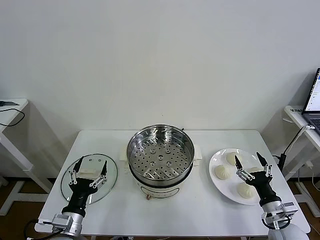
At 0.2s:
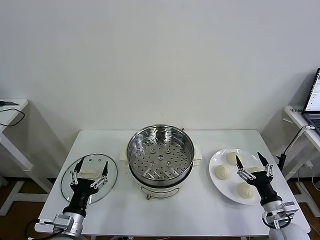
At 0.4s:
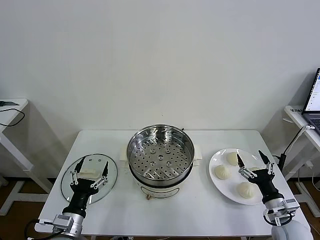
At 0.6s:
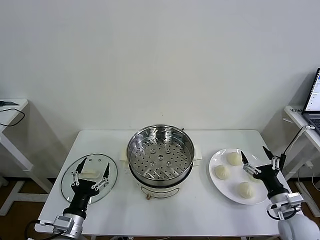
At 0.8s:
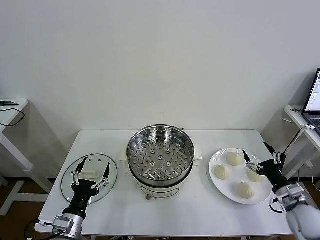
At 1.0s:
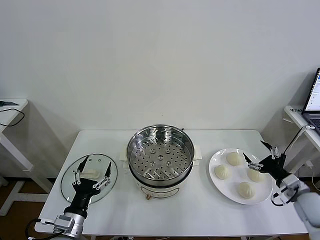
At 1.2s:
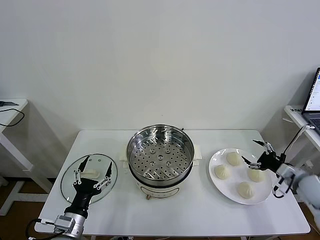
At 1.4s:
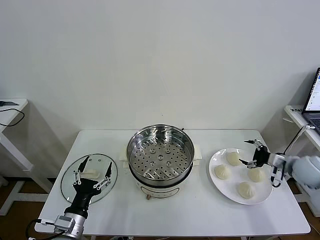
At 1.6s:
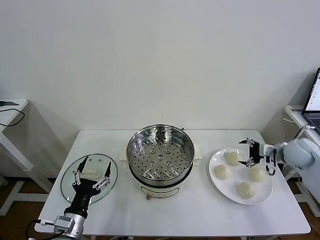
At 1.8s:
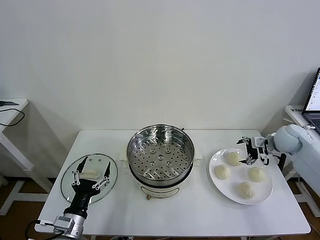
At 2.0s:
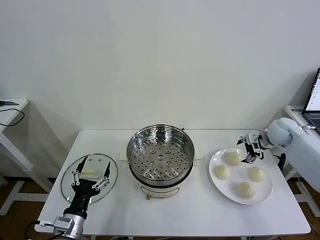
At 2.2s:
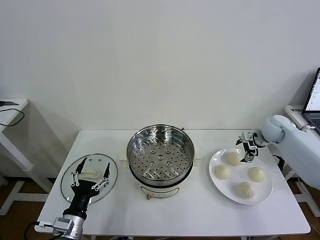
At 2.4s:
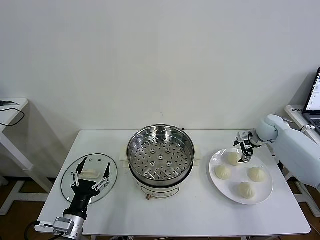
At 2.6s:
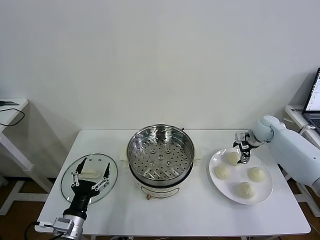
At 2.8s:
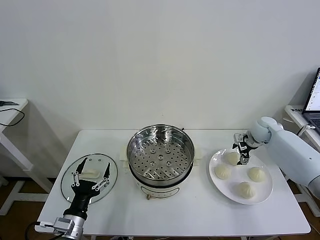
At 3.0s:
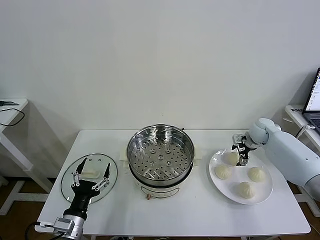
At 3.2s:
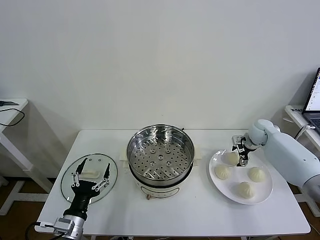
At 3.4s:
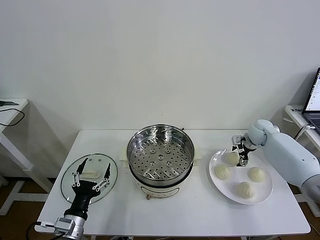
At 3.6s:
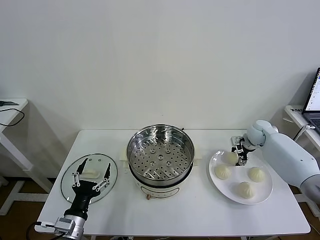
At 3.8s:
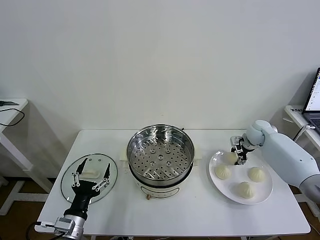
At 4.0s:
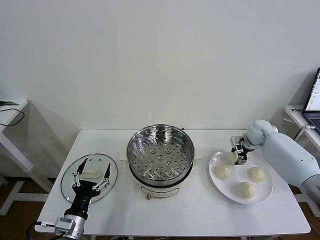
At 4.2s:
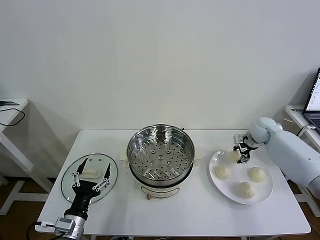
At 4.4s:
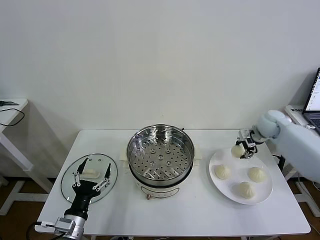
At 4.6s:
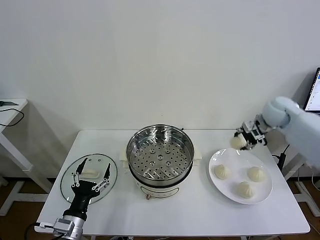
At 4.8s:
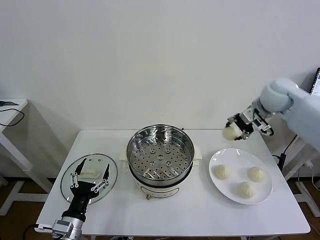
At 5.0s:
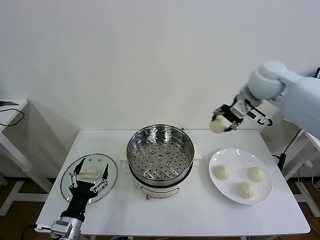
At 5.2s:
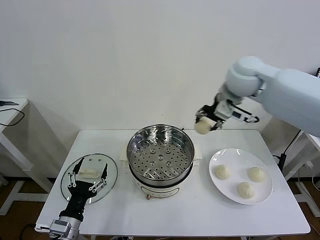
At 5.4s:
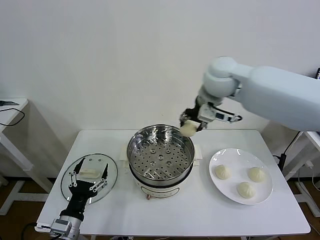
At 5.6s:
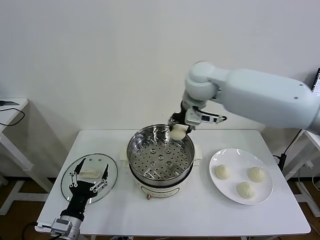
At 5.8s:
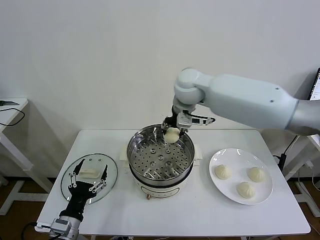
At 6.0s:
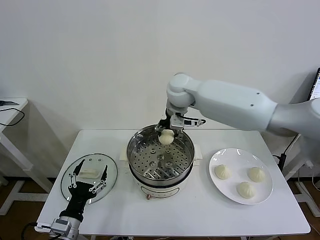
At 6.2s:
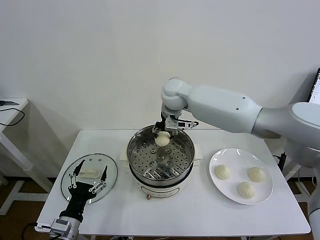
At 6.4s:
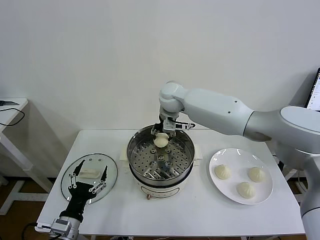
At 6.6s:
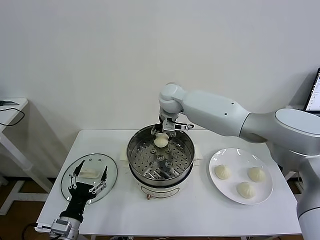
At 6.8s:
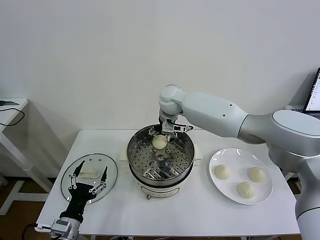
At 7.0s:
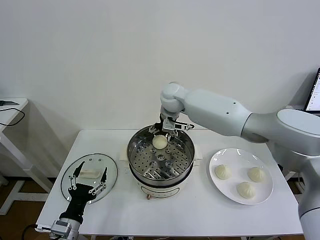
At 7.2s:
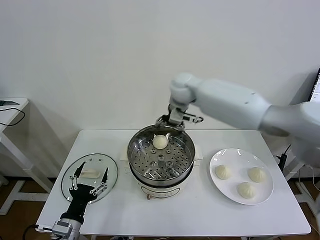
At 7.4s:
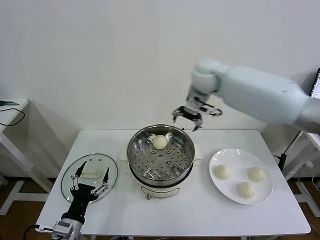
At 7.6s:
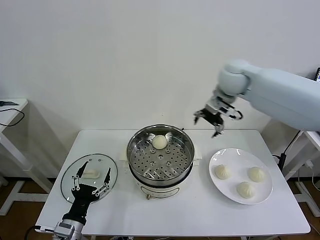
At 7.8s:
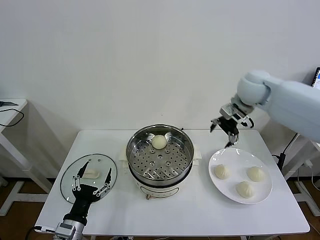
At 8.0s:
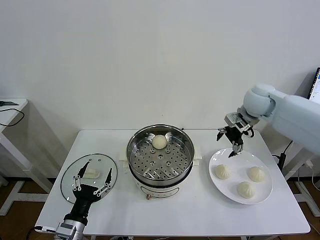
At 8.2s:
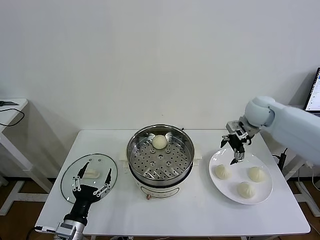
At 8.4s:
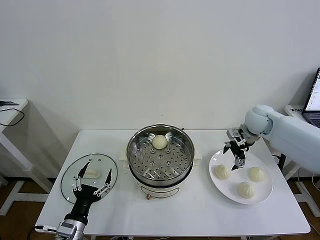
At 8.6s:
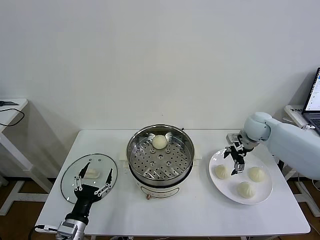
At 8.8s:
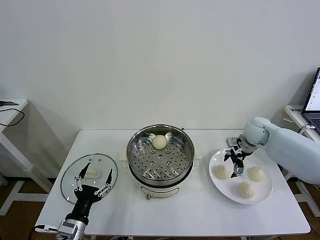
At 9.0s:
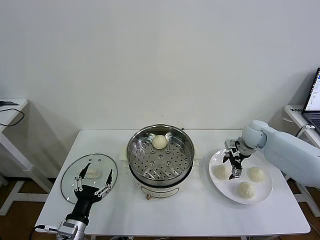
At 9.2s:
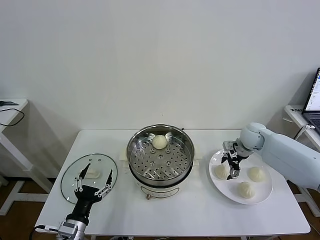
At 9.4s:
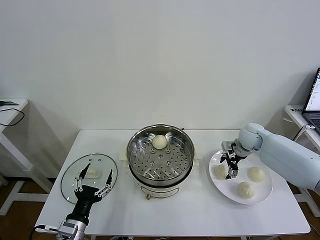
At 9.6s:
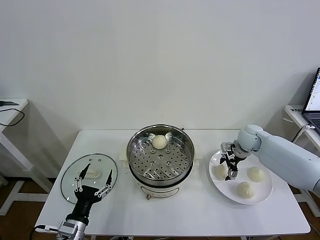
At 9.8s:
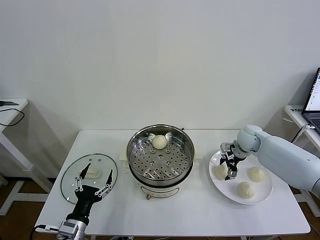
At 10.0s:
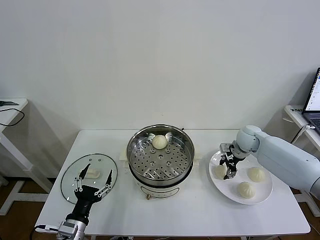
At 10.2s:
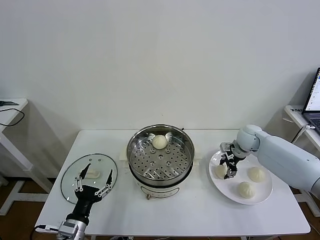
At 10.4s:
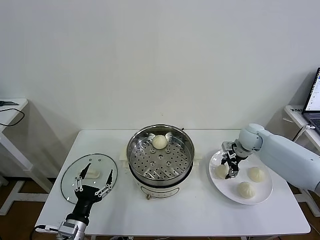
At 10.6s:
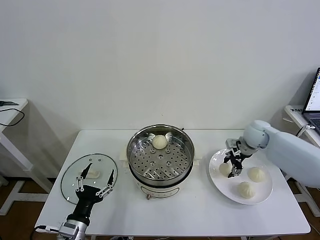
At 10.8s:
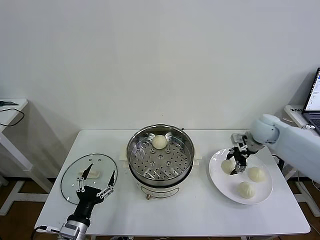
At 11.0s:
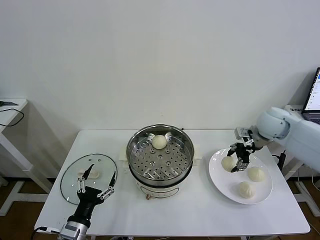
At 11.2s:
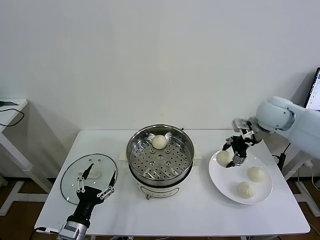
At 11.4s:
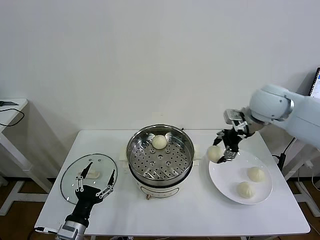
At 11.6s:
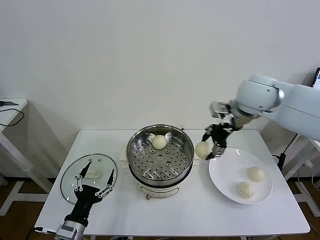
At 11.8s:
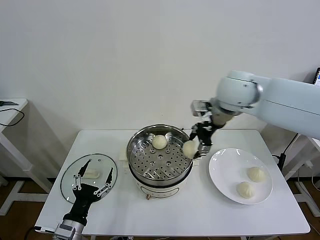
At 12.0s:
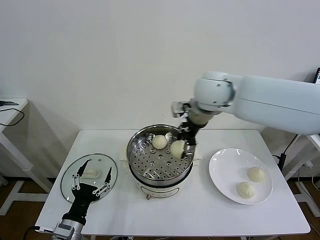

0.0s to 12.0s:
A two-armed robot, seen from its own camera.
Task of the whole recording: take steamed baozi put them in steamer then cover it.
Step, 0.0s to 3.8s: Grasp the baozi in the plate with right gripper.
Step, 4.0s to 6.8s: Place the baozi on the steamer with right gripper.
Step, 7.0s to 10.2s: Grasp the baozi in the plate with right gripper.
1.6s to 3.0s: The right gripper moves forward and to the left, approximately 10 cm.
3.0s to 4.4s: The right gripper goes about 10 cm upward, and closes up.
4.4s to 6.0s: The right gripper shifts some 35 cm to the left.
6.0s to 7.6s: The right gripper moves to the right, roughly 20 cm, and opens its fingers.
7.6s to 9.0s: The right gripper goes about 25 cm downward and to the right.
9.0s to 10.4s: The right gripper closes its fingers.
10.4s to 12.0s: The right gripper moves to the left and upward, about 35 cm.

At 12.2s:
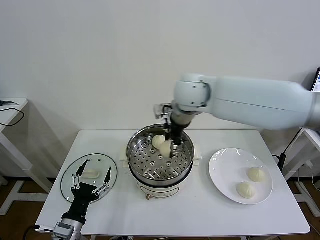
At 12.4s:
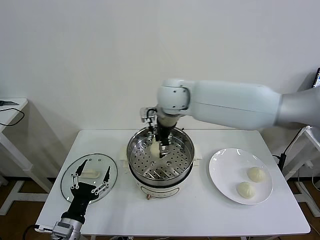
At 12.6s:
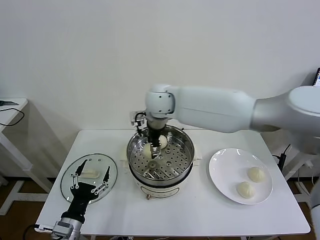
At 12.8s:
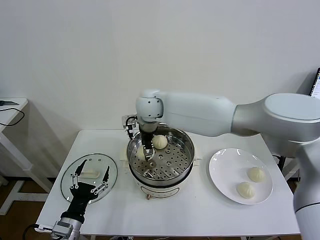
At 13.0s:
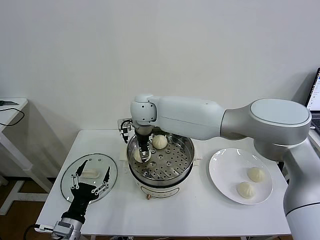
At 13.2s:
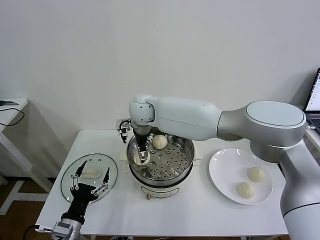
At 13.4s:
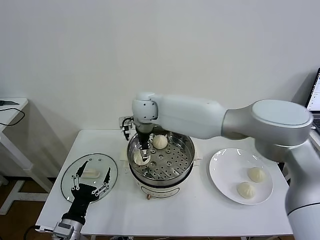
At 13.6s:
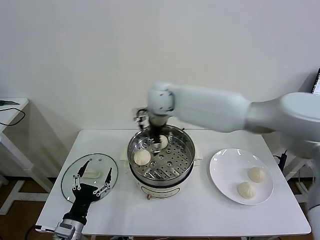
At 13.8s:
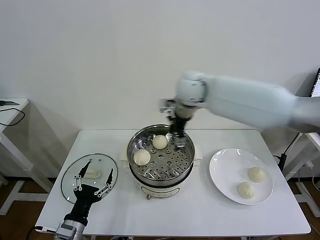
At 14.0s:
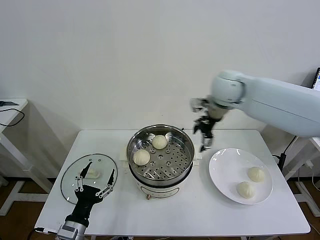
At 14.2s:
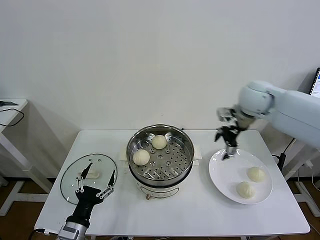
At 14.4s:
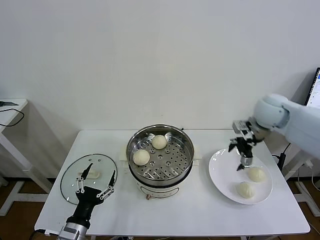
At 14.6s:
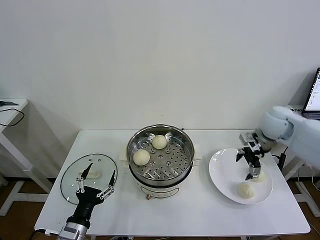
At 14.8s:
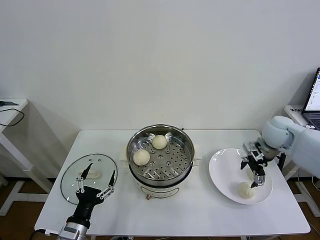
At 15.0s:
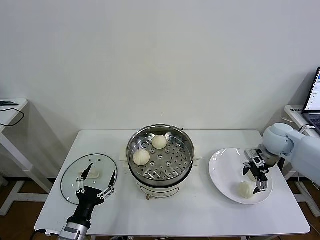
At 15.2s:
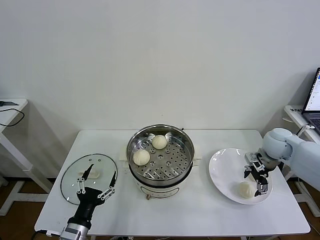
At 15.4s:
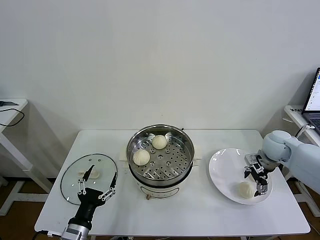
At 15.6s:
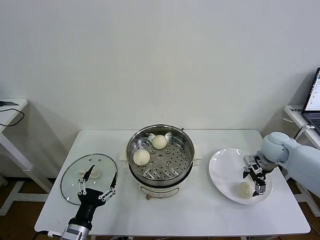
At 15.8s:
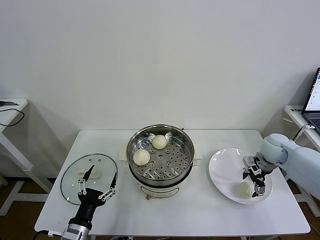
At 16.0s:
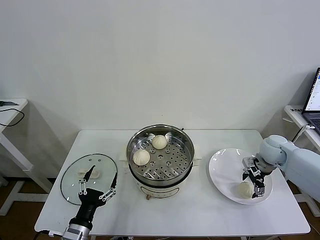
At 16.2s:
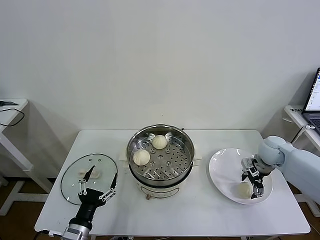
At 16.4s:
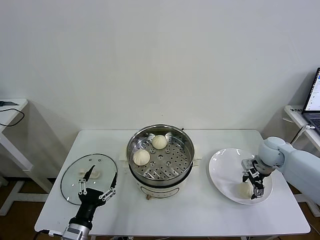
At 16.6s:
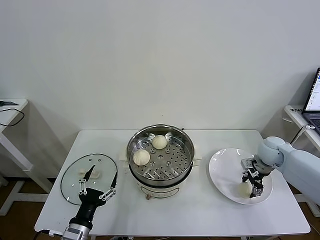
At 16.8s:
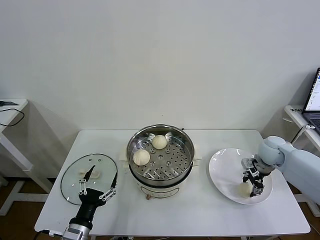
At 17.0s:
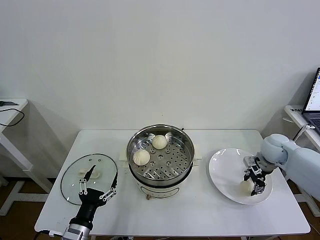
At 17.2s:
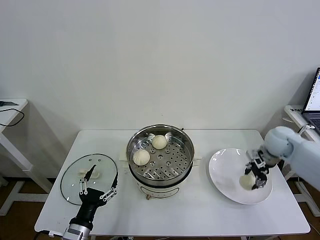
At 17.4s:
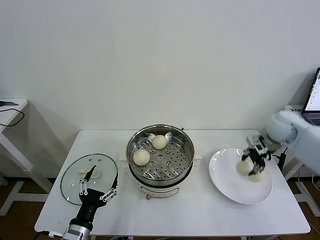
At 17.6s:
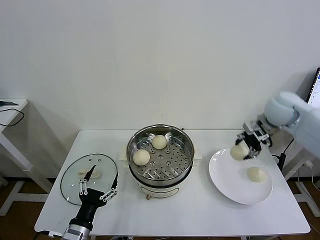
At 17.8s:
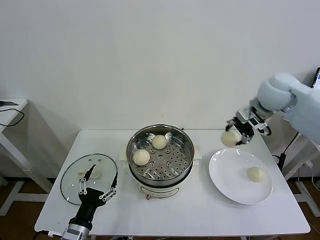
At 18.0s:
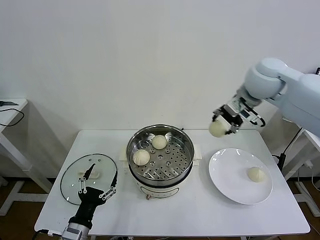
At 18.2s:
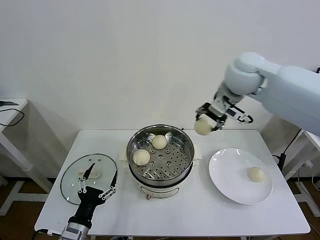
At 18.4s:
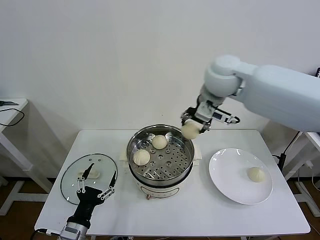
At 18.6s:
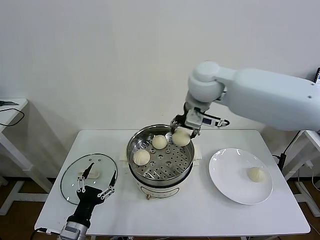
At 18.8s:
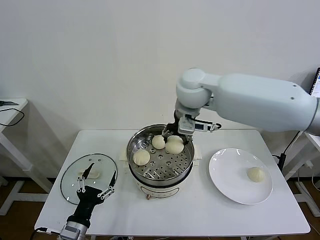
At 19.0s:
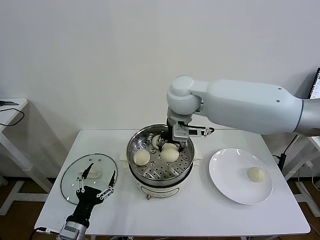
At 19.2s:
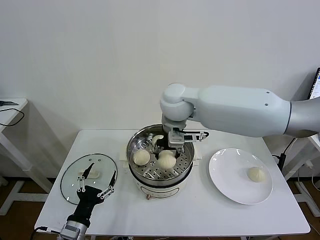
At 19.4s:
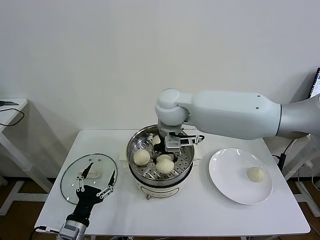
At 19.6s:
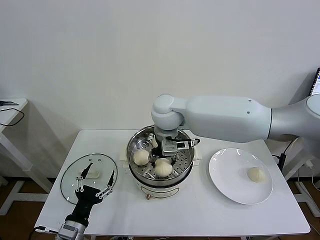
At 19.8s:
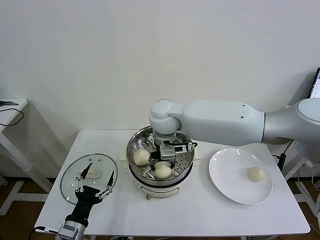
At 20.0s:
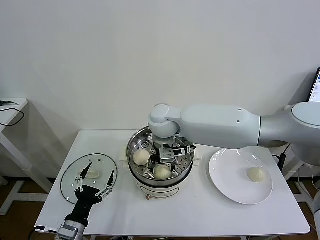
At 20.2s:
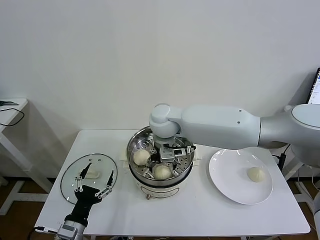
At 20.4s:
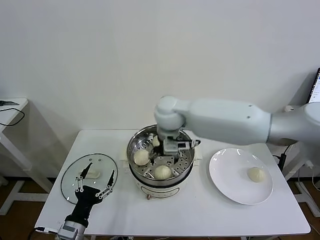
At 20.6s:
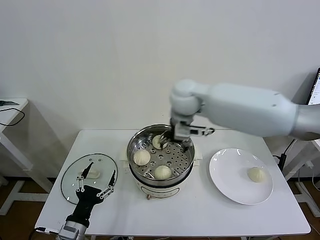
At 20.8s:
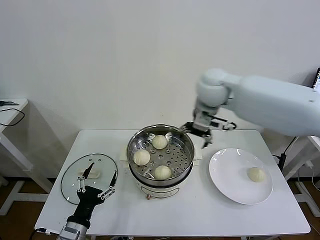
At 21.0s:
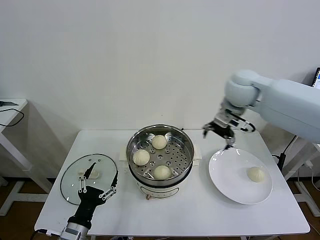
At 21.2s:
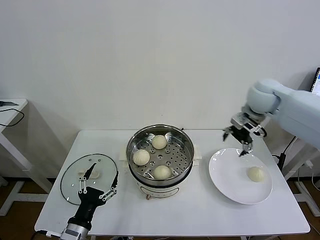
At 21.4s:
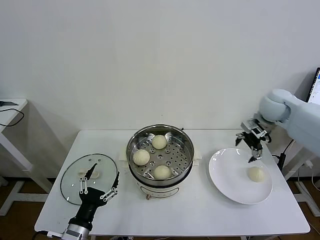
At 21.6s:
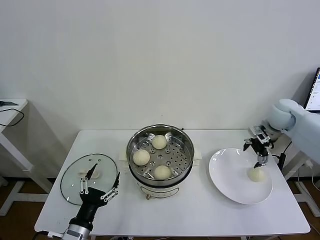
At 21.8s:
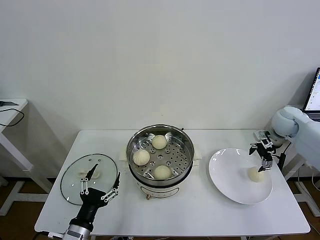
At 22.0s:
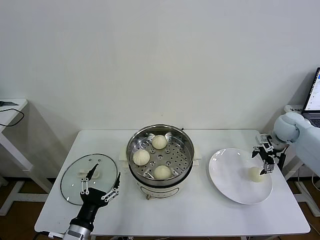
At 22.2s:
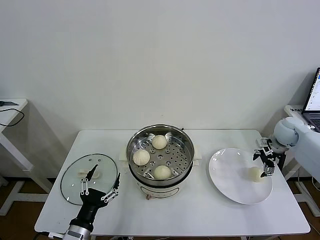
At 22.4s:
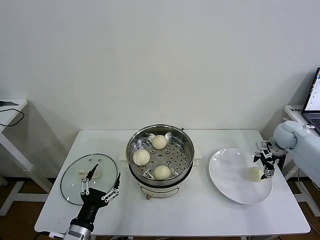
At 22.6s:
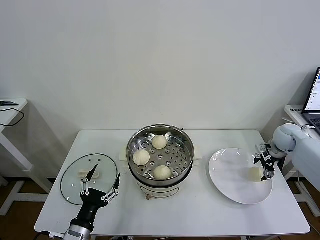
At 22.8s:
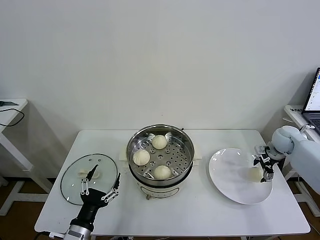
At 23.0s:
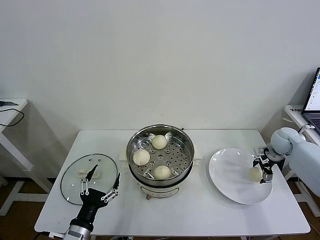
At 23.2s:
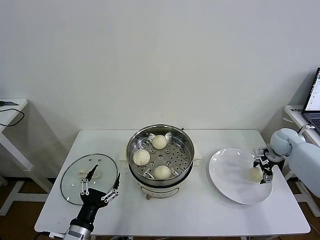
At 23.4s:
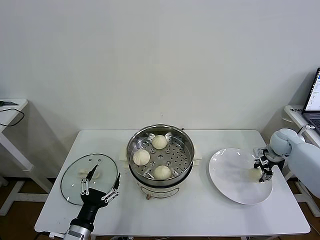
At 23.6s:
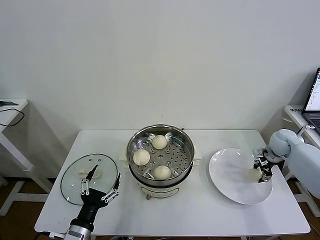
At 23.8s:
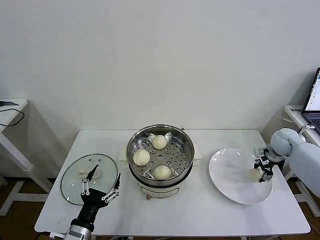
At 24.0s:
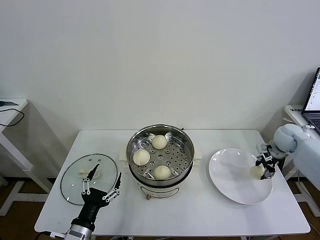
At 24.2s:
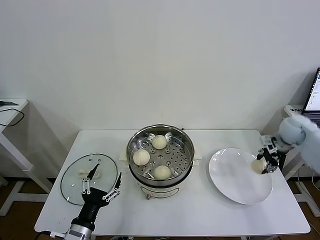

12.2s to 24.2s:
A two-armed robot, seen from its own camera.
Task of the whole recording: take steamed baozi put them in steamer then cover it.
Step, 13.4s to 16.8s: Grasp the baozi in the plate with right gripper.
Step, 17.0s to 20.0s: Place the baozi on the steamer with right gripper.
Step, 20.4s to 23.6s: Grasp the baozi in the plate with right gripper.
12.2s to 13.8s: The right gripper goes approximately 5 cm to the right, and opens up.
13.8s to 15.2s: The right gripper is displaced to the right and downward by roughly 35 cm.
15.2s to 16.6s: The right gripper closes.
16.6s to 18.2s: The right gripper goes about 35 cm upward and to the left.
18.2s to 19.8s: The right gripper is displaced to the left and downward by about 25 cm.
19.8s to 21.2s: The right gripper travels to the right by some 30 cm, and opens.
21.2s to 22.6s: The right gripper shifts about 25 cm downward and to the right.
22.6s to 24.2s: The right gripper travels upward by some 5 cm, and closes its fingers.
